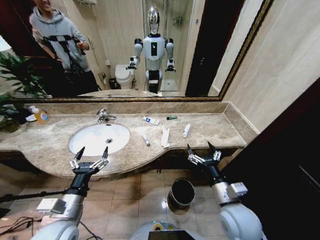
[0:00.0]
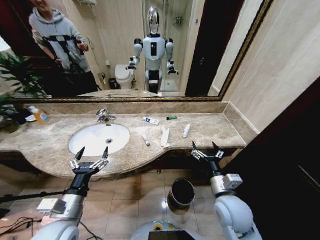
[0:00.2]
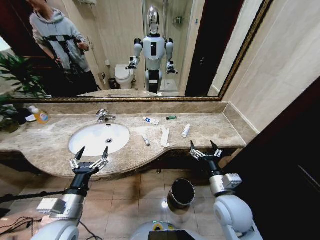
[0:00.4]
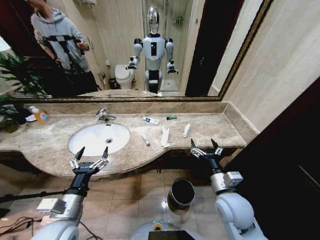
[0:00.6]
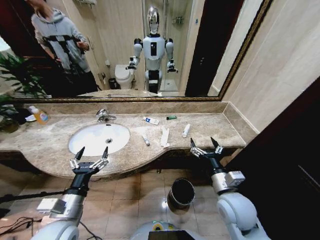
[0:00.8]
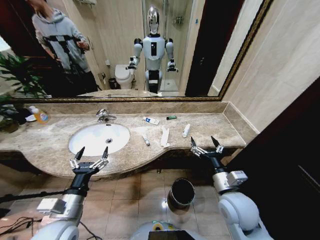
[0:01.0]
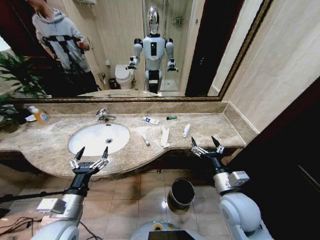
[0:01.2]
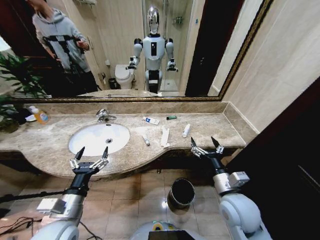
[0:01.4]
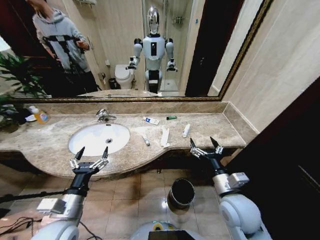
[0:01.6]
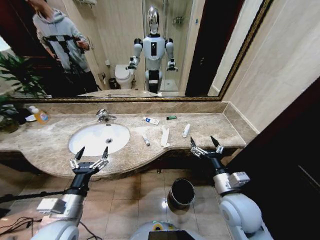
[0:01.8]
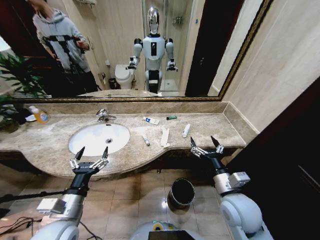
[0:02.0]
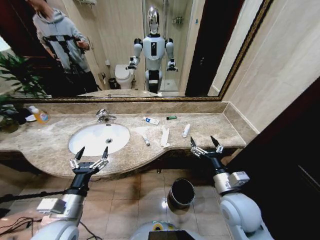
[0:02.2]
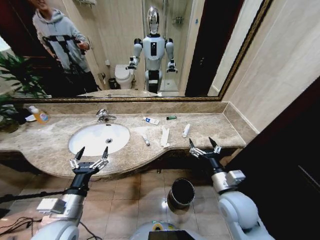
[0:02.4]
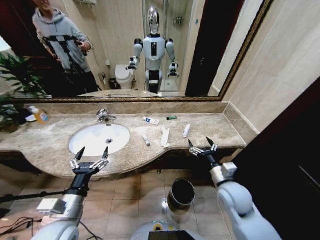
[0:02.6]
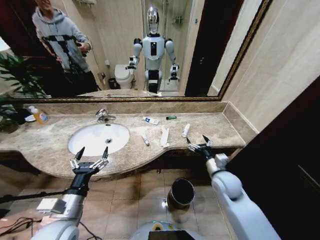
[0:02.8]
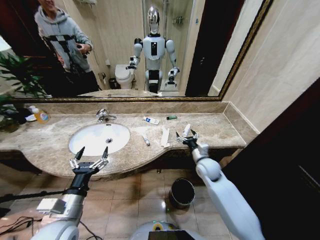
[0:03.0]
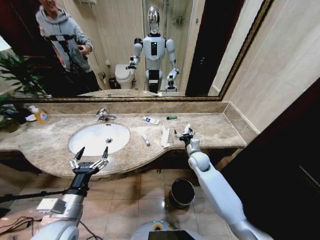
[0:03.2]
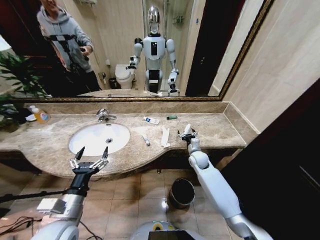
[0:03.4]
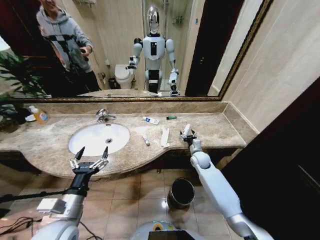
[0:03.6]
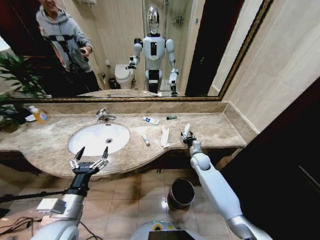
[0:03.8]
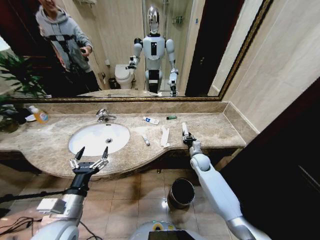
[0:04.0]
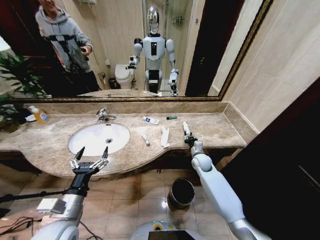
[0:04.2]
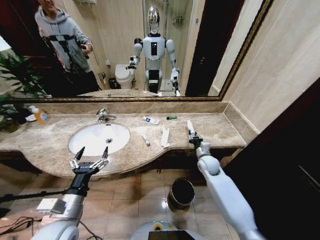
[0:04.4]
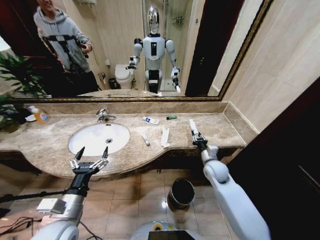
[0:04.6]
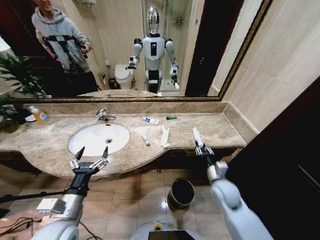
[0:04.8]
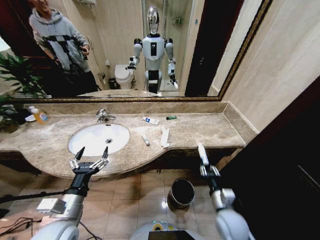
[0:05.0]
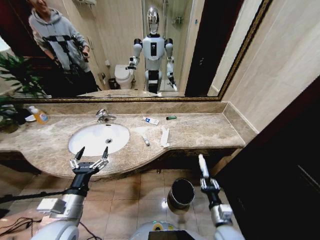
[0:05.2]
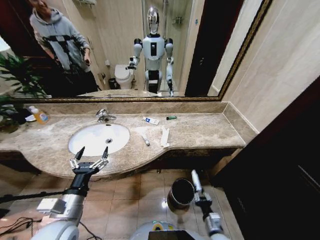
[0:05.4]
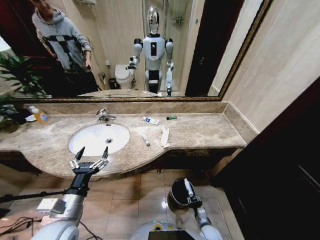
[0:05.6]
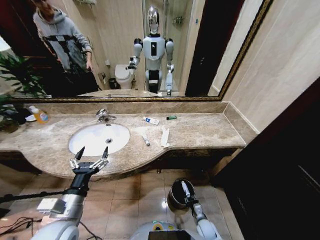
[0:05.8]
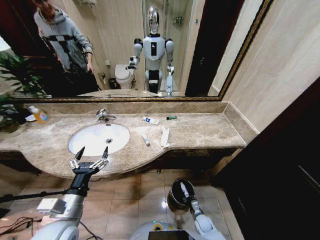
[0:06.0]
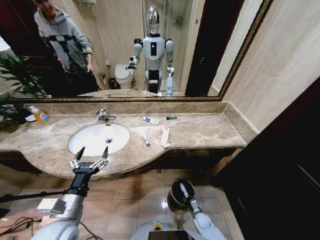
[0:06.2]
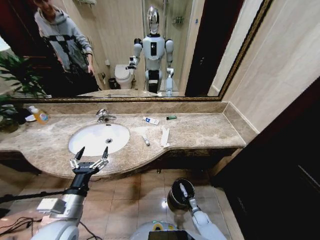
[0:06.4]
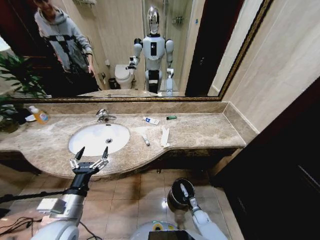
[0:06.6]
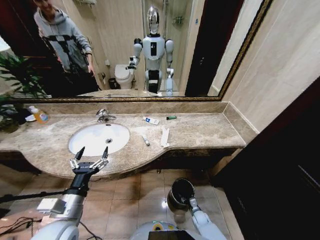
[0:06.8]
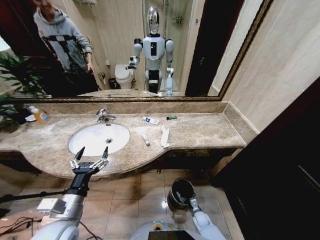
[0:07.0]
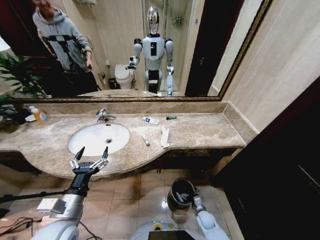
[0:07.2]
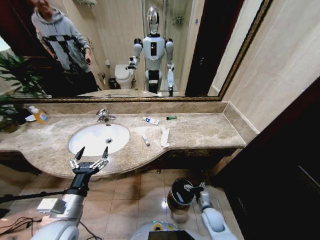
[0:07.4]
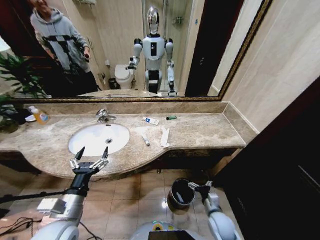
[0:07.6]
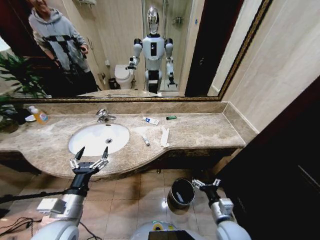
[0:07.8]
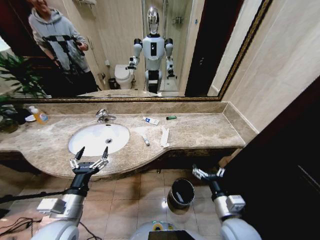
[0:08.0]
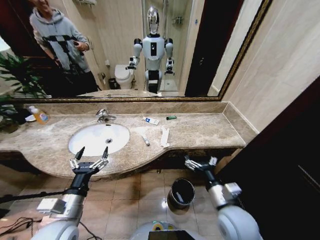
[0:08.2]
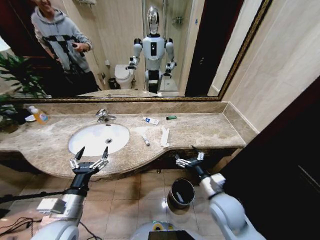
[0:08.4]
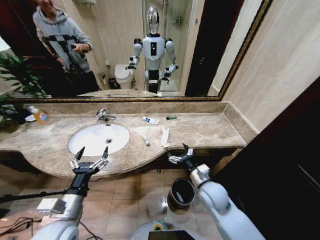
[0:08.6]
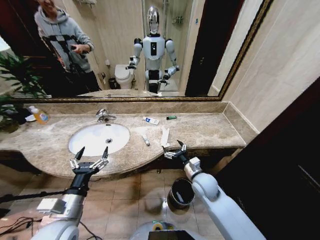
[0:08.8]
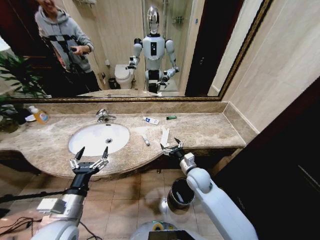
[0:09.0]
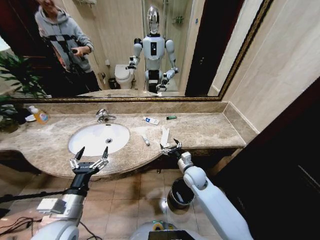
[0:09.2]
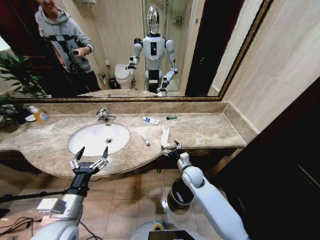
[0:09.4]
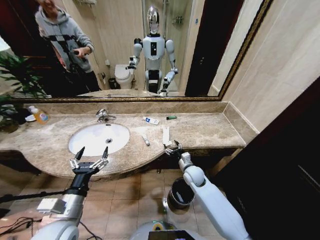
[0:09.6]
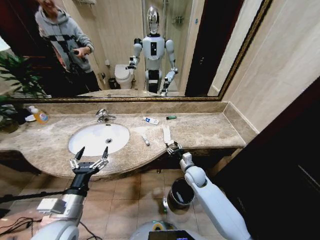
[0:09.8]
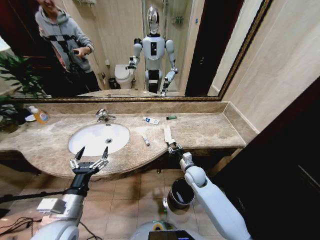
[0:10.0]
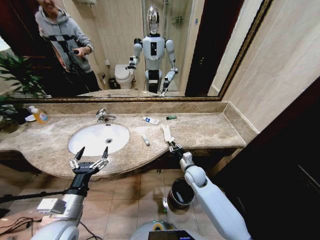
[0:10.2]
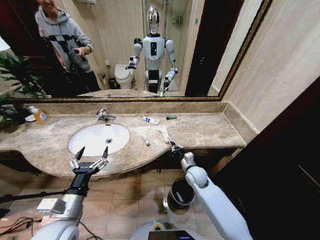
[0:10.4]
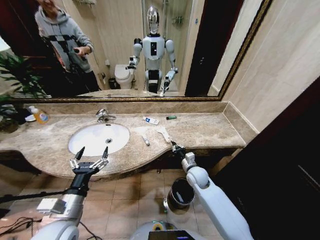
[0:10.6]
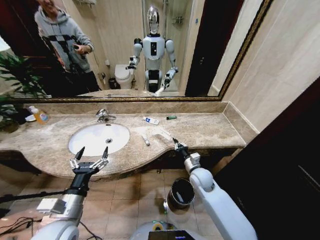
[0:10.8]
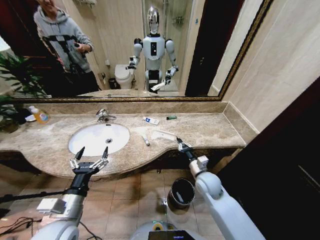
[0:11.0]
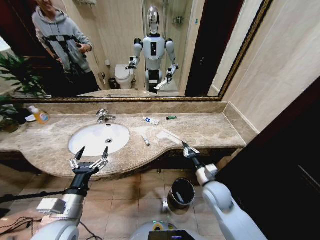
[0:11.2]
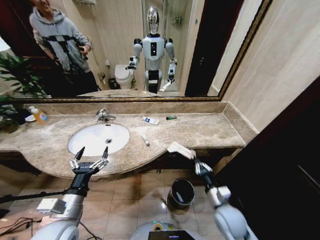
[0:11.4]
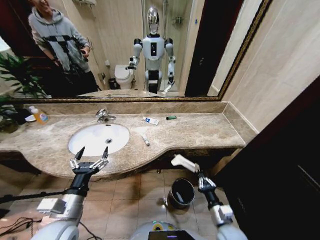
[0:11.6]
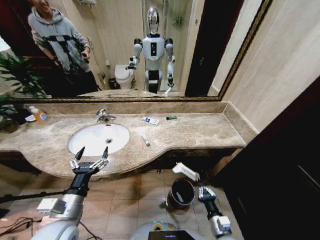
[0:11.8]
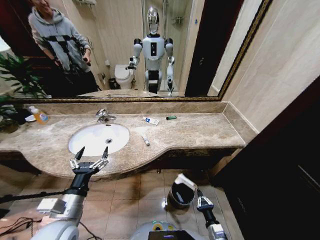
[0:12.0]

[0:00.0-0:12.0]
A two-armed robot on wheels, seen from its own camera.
Task of the whole recording: Pick up the trash from the sink and place it in the trash bin.
0:01.6 to 0:03.0: The right gripper heads forward, covering approximately 15 cm.
0:03.0 to 0:04.4: The right gripper closes up.
0:04.4 to 0:06.0: The right gripper is displaced downward and backward by approximately 35 cm.
0:06.0 to 0:07.6: The right gripper moves upward, roughly 20 cm, and opens up.
0:07.6 to 0:09.0: The right gripper travels forward, upward and to the left by some 20 cm.
0:09.0 to 0:10.4: The right gripper shifts by some 5 cm, and closes up.
0:10.4 to 0:12.0: The right gripper travels backward and downward by approximately 30 cm.

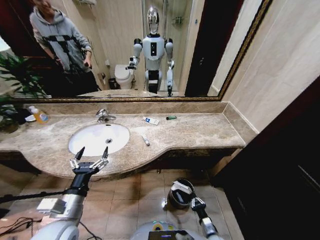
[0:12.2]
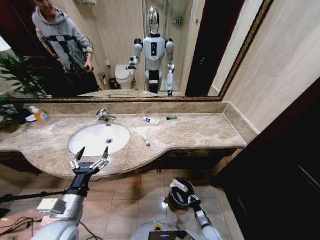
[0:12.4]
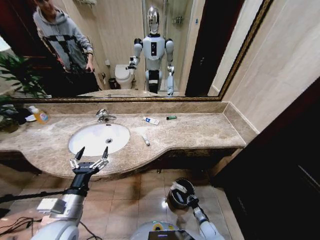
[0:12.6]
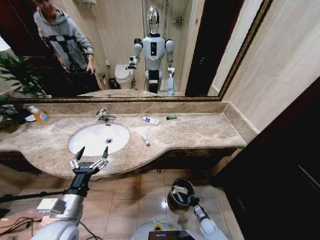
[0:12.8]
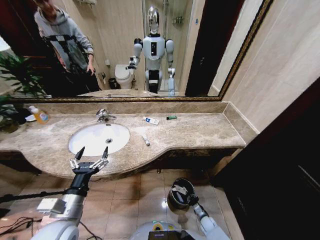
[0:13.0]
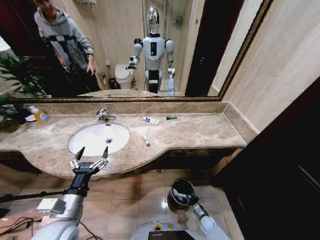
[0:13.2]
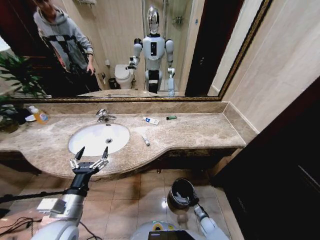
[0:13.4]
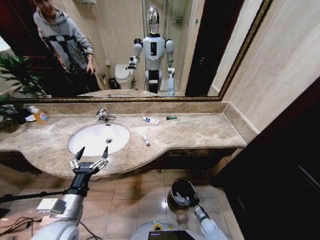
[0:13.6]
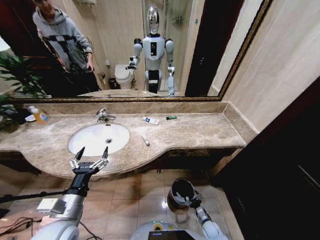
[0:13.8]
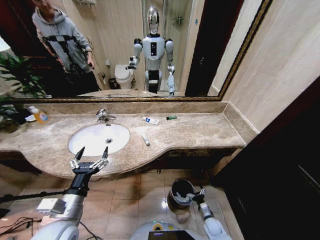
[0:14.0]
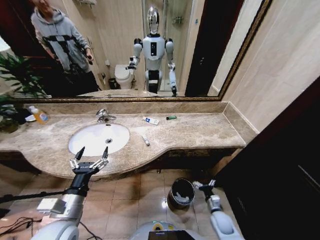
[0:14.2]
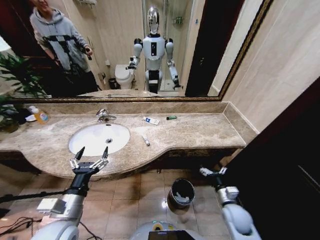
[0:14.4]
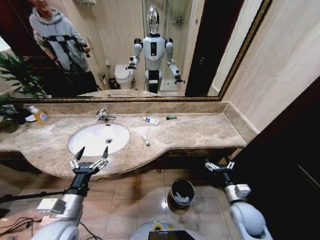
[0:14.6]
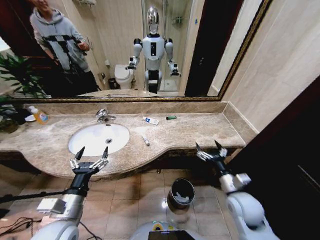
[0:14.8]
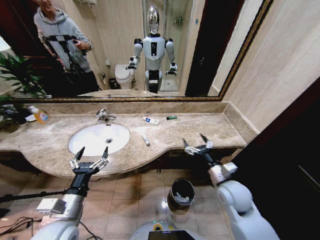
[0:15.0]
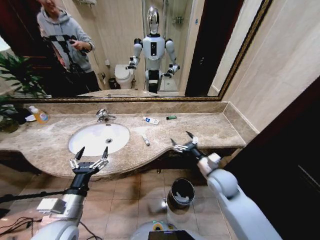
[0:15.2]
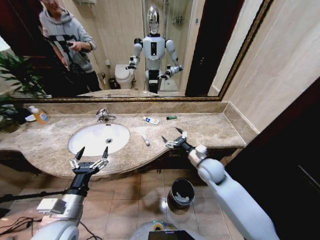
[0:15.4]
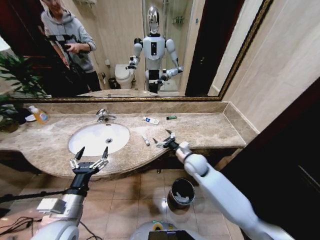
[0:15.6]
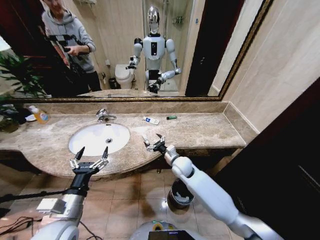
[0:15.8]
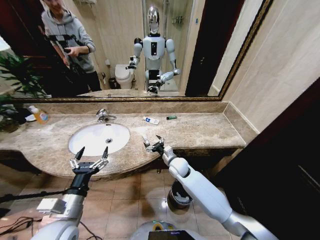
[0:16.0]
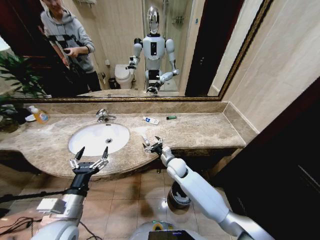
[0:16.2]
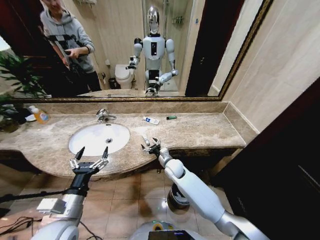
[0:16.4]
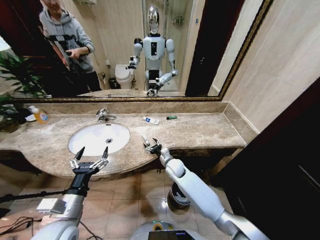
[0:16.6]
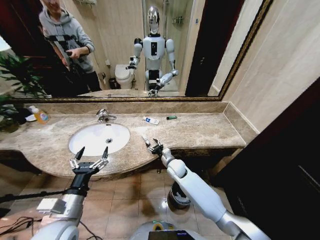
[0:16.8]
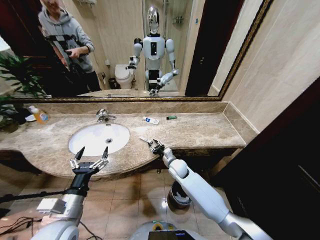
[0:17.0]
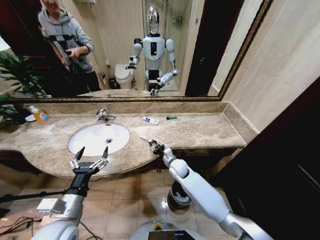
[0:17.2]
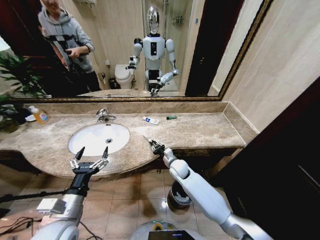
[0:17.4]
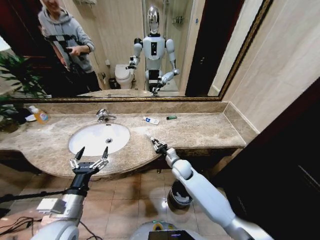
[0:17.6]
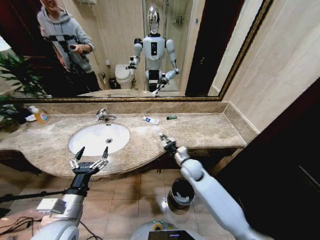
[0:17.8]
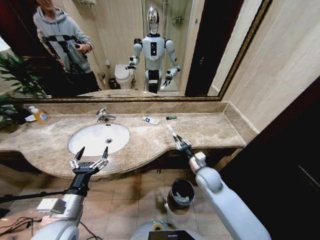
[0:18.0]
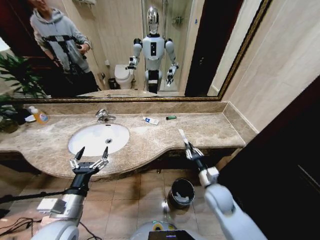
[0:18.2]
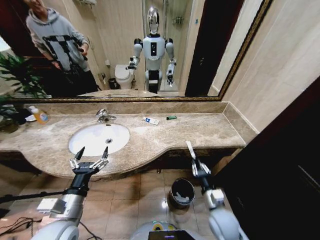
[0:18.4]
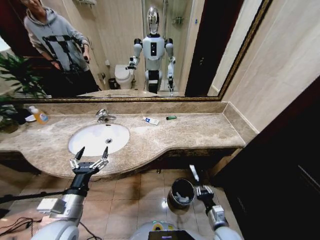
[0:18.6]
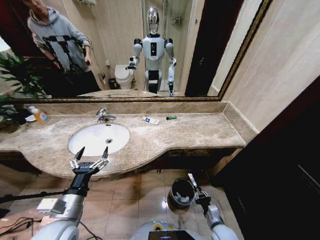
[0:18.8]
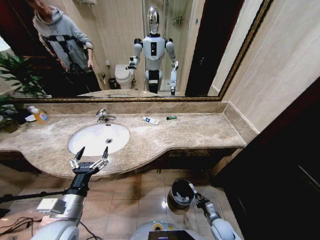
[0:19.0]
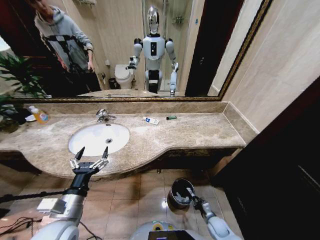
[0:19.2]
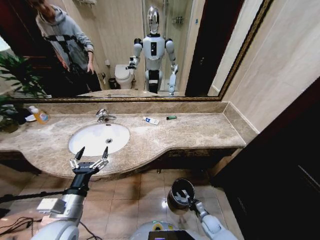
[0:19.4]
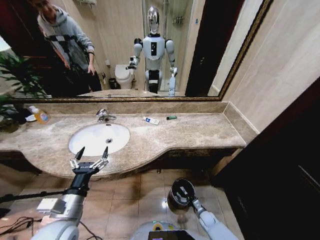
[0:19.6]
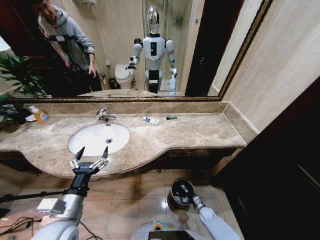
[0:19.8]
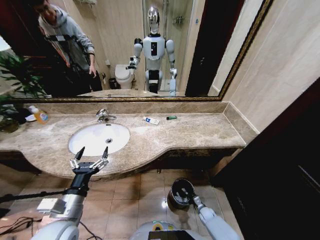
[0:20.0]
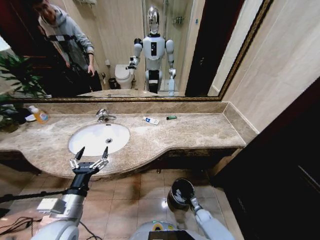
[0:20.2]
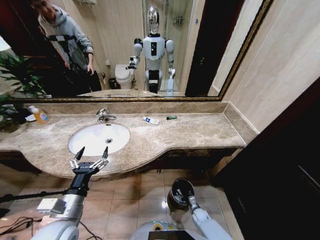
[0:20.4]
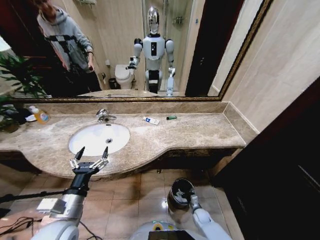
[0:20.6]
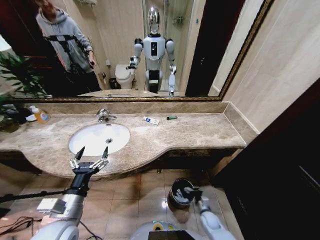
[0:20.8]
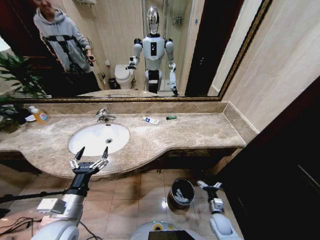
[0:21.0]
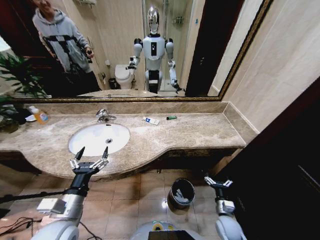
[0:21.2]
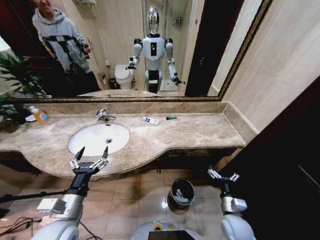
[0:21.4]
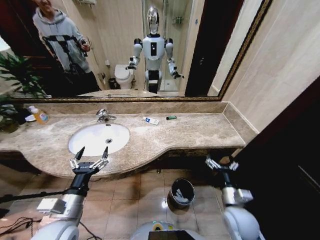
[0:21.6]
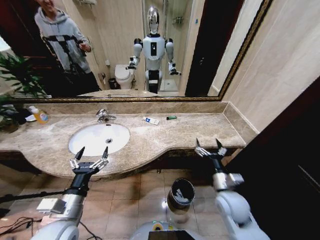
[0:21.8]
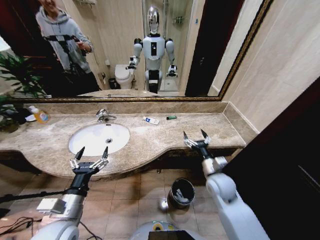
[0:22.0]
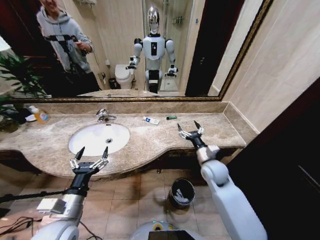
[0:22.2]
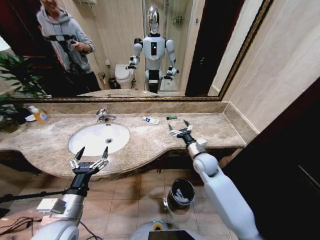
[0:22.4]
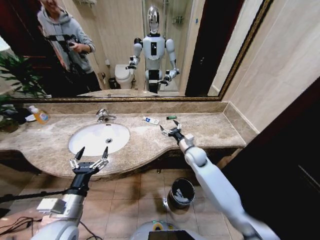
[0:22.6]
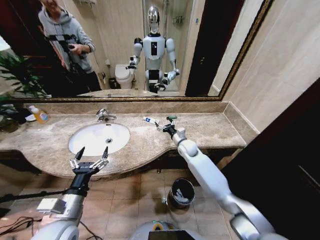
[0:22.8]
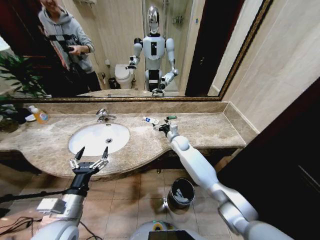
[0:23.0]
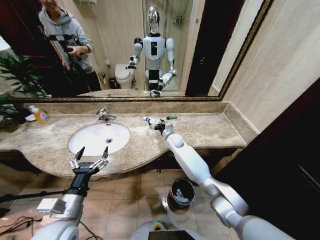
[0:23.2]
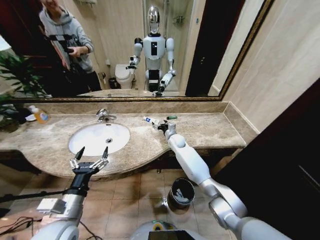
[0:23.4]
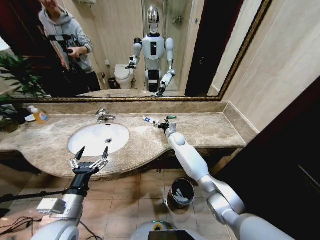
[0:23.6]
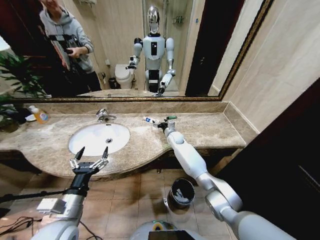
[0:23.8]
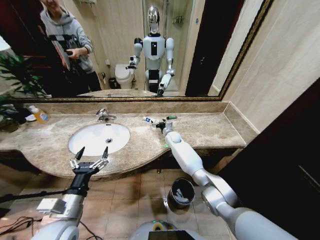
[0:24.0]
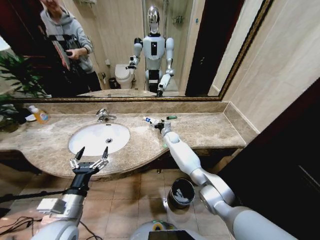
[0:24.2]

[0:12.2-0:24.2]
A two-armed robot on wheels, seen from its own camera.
Task of the whole recording: Pick up the trash from the sink and place it in the trash bin.
0:12.2 to 0:13.8: The right gripper is displaced downward and forward by approximately 10 cm, and opens.
0:13.8 to 0:15.2: The right gripper shifts approximately 40 cm upward.
0:15.2 to 0:16.6: The right gripper moves to the left, forward and downward, some 20 cm.
0:16.6 to 0:18.2: The right gripper travels to the right and backward by about 20 cm, and closes.
0:18.2 to 0:19.8: The right gripper travels downward by approximately 35 cm.
0:19.8 to 0:21.2: The right gripper heads upward, covering roughly 15 cm, and opens up.
0:21.2 to 0:22.6: The right gripper moves forward, upward and to the left, about 35 cm.
0:22.6 to 0:24.2: The right gripper shifts roughly 20 cm forward and to the left.
